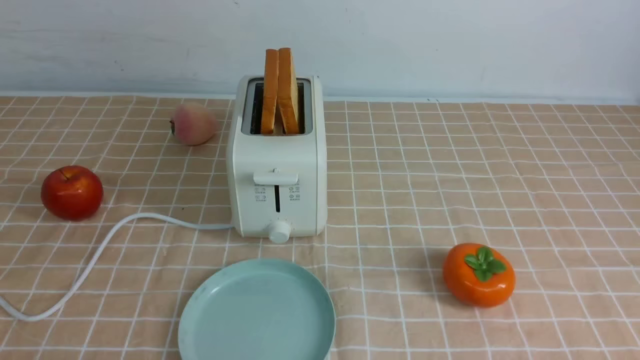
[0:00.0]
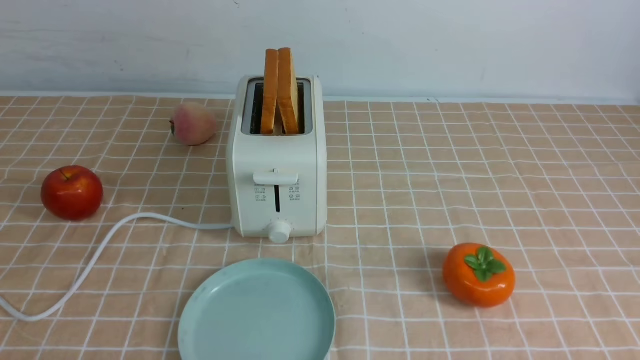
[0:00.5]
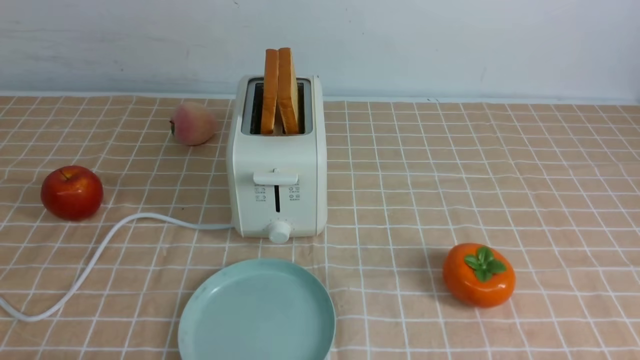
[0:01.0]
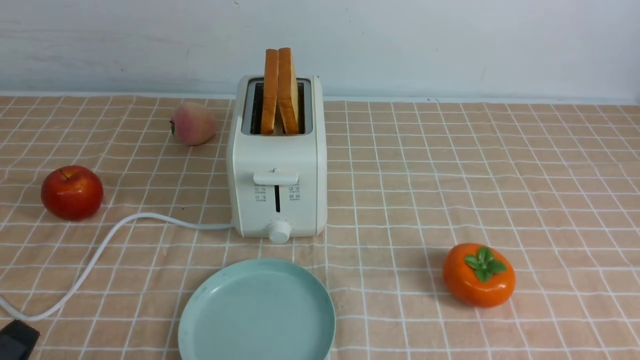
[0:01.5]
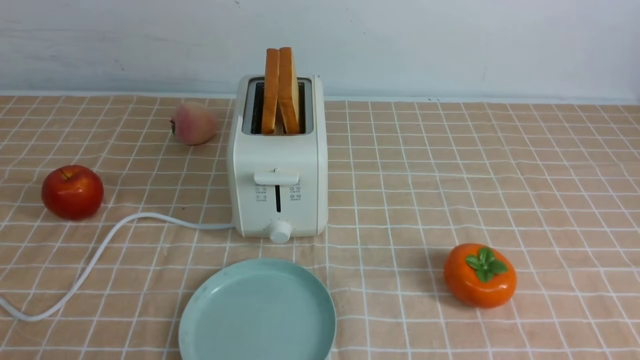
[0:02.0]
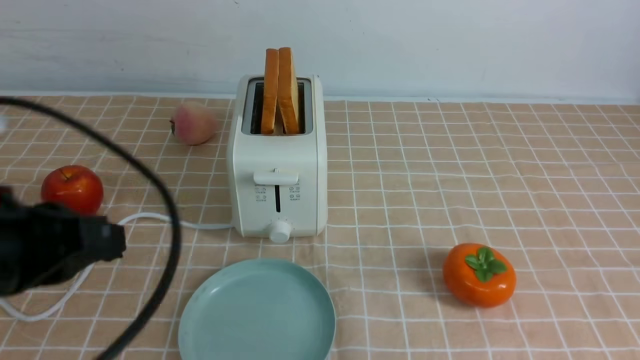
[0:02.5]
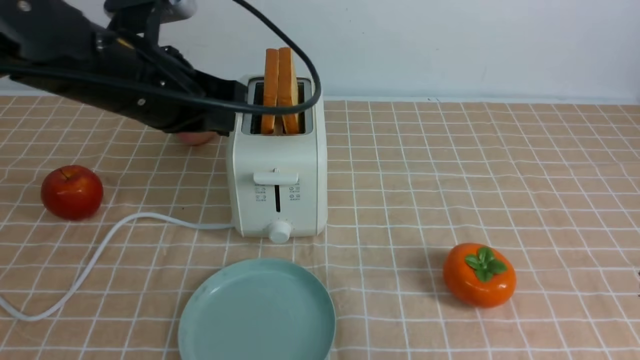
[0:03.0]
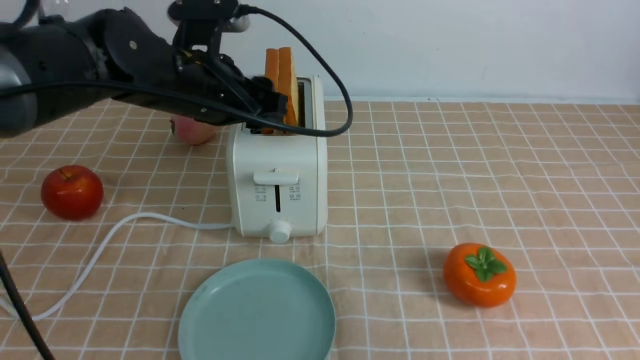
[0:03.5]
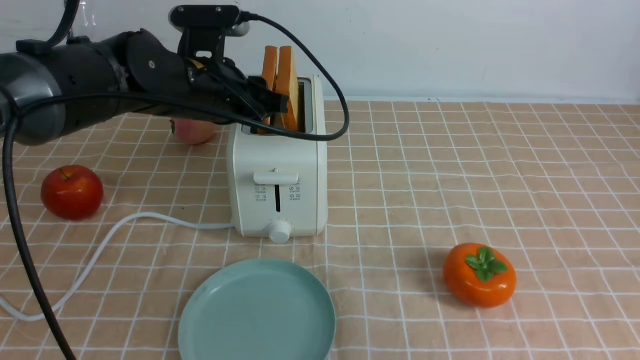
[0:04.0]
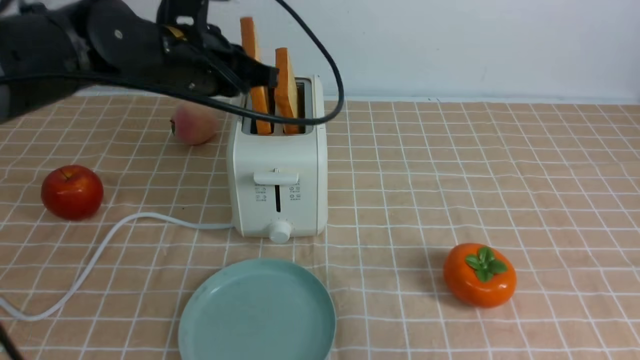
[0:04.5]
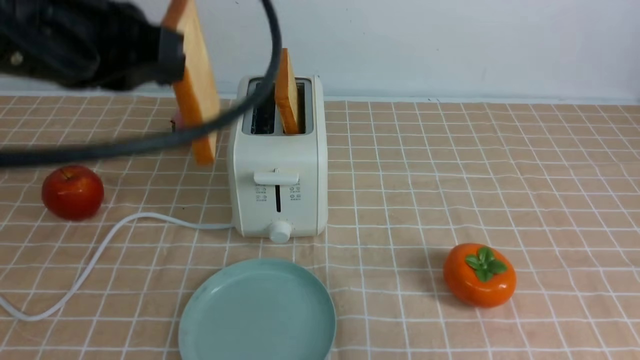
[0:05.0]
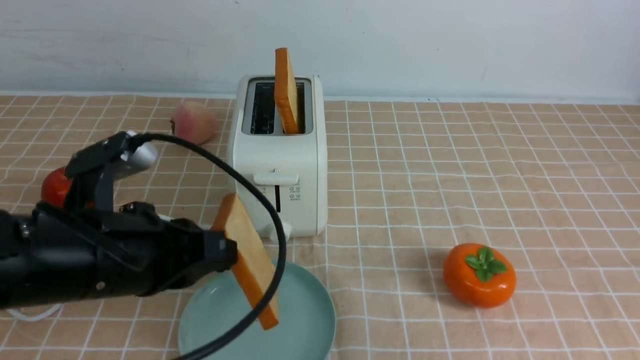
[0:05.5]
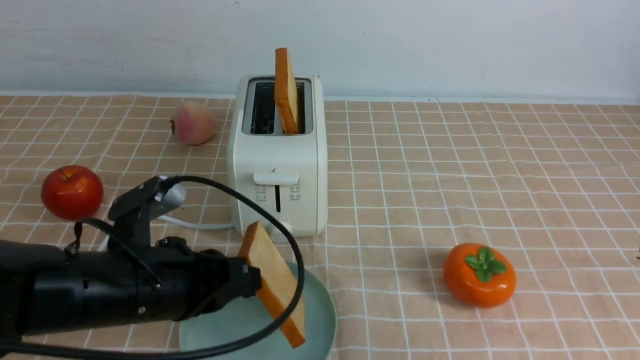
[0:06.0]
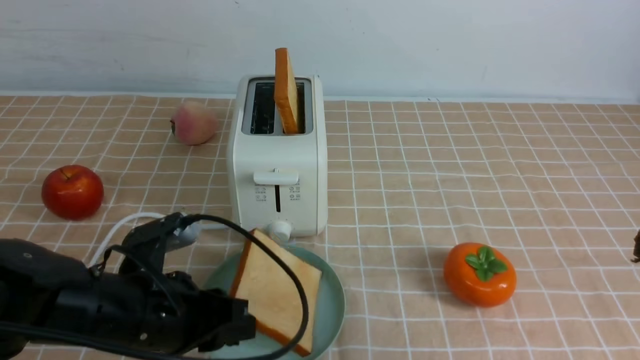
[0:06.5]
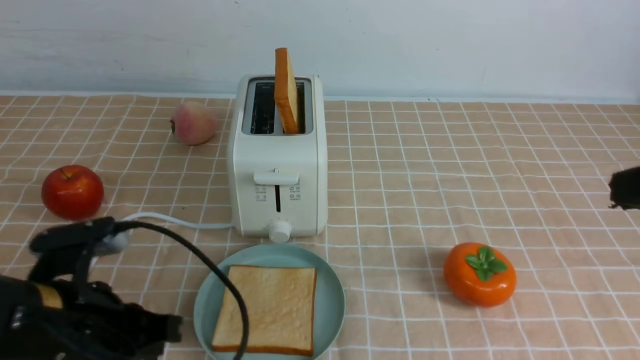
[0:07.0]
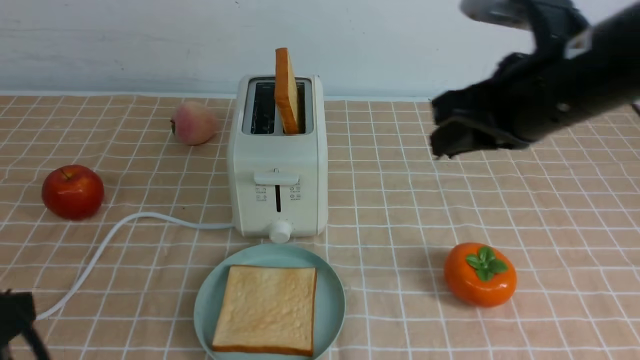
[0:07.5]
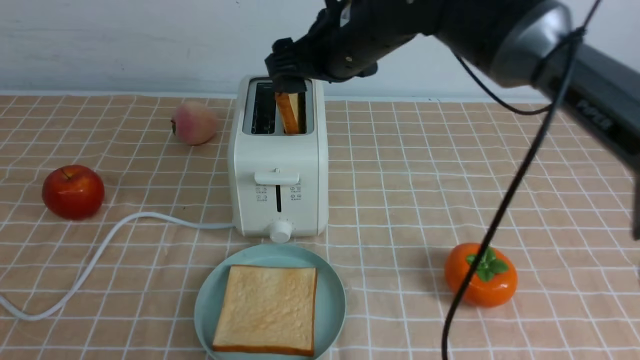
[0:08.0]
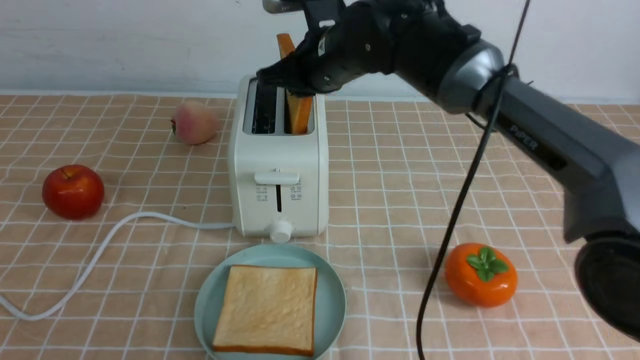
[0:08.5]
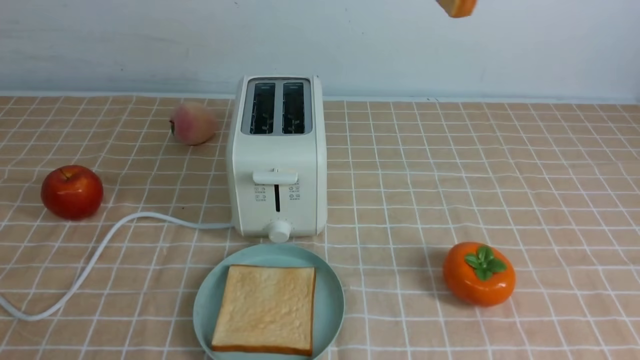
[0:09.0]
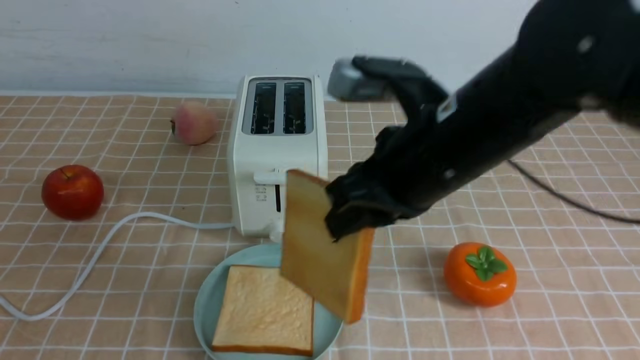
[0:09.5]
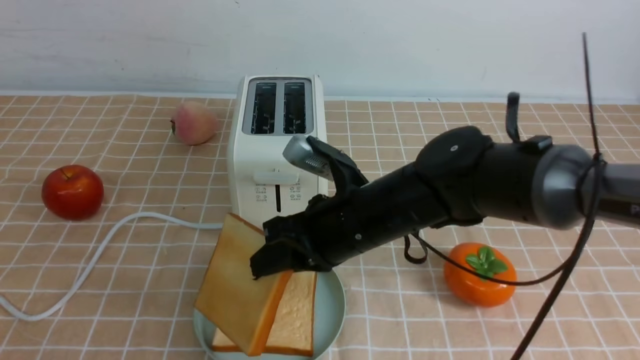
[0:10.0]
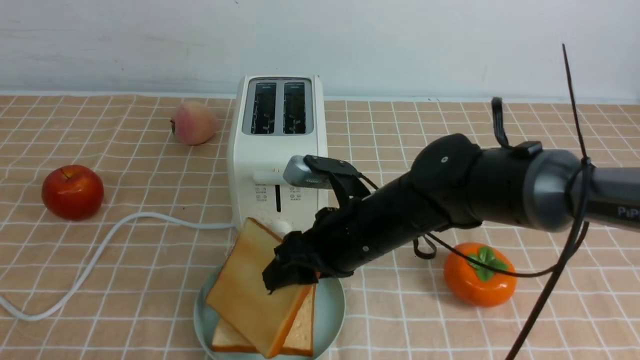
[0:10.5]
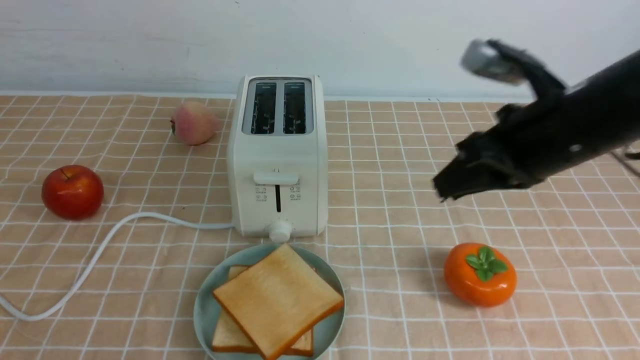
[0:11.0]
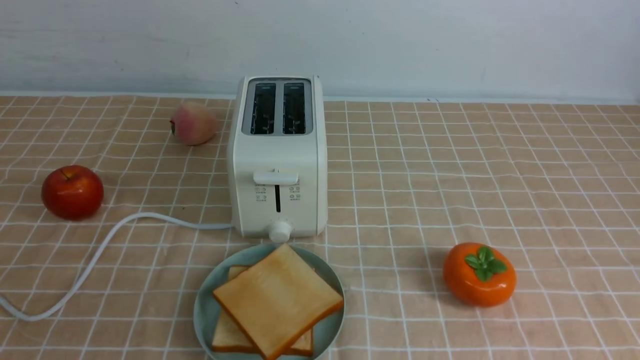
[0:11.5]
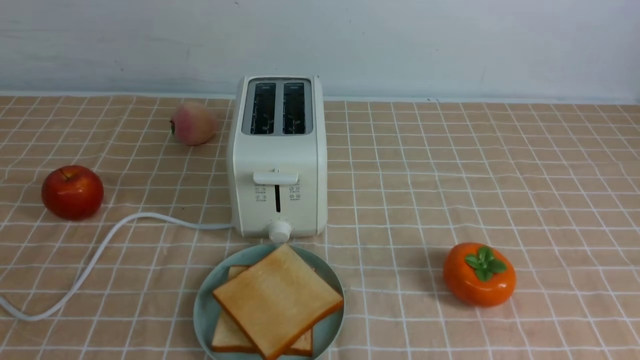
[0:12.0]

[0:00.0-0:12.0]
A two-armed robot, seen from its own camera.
Task of the whole recording: take toasted bread from bread machine on light coffee tablecloth place on plate.
Step, 0:00.0 to 0:04.5: use the left arm to take out a slice of bread.
Step, 0:05.0 to 0:06.5: use the left arm to put a slice of bread into the empty plate.
Step, 0:07.0 to 0:08.5: use the right arm to take out a slice of bread.
Step, 0:09.0 to 0:10.5: use the right arm to put a slice of bread into the plate.
0:02.0 to 0:04.0: The right gripper shifts about 10 cm upward and forward; the left gripper heads forward, covering about 35 cm, and opens up.
0:04.0 to 0:06.0: The left gripper moves backward and downward, roughly 20 cm, and closes its fingers.
0:06.0 to 0:08.0: The right gripper shifts roughly 40 cm forward and to the left, and opens up. The left gripper goes roughly 20 cm backward, upward and to the left, and opens and closes again.
0:08.0 to 0:10.0: The right gripper heads downward and backward, covering some 15 cm, and closes its fingers.
0:10.0 to 0:12.0: The right gripper travels to the right, backward and upward by some 40 cm, and opens, then closes again.
